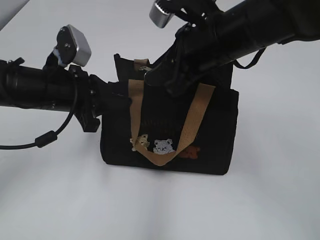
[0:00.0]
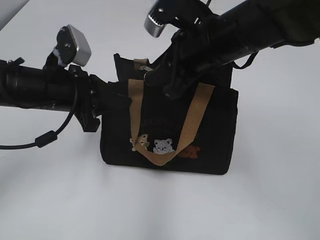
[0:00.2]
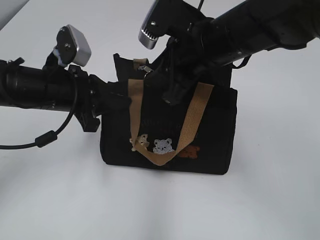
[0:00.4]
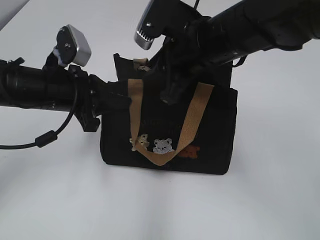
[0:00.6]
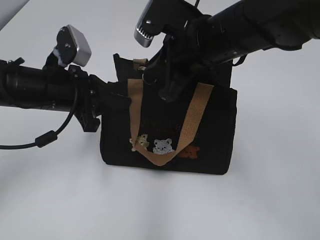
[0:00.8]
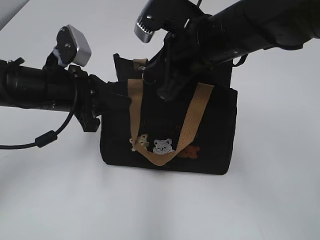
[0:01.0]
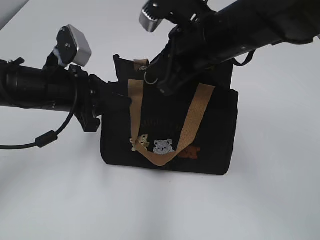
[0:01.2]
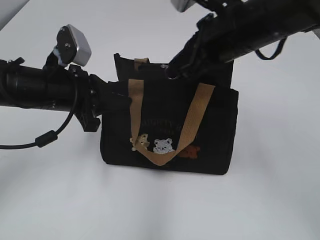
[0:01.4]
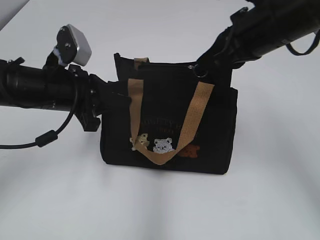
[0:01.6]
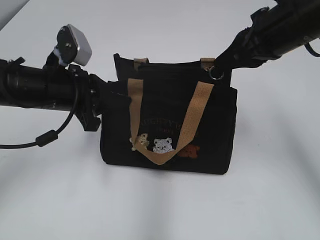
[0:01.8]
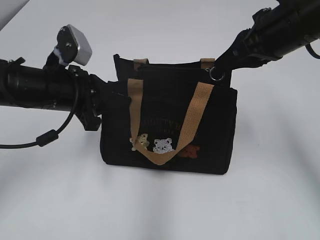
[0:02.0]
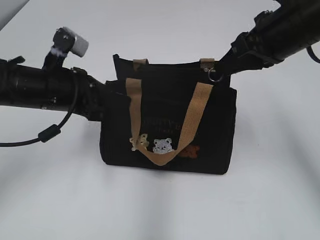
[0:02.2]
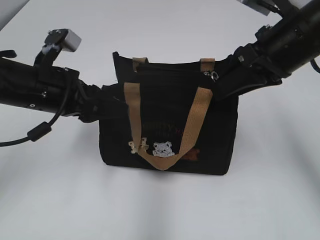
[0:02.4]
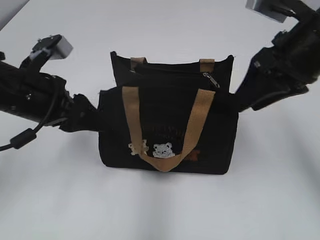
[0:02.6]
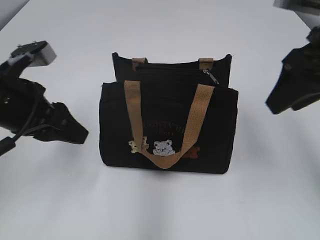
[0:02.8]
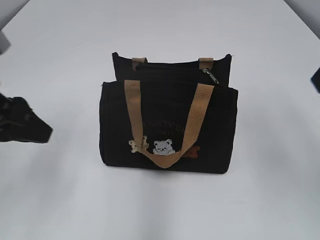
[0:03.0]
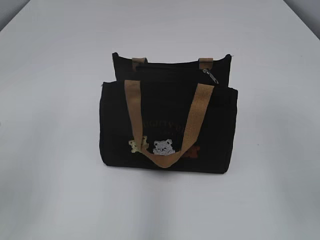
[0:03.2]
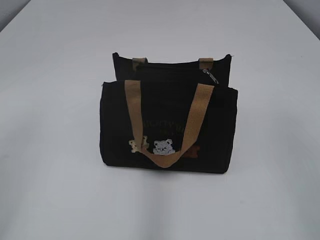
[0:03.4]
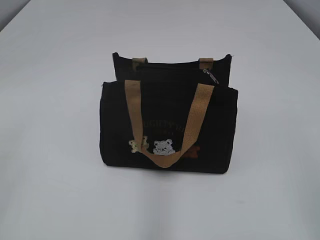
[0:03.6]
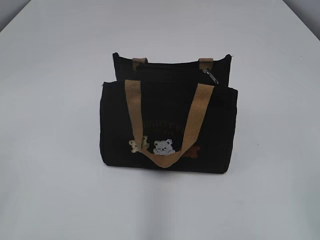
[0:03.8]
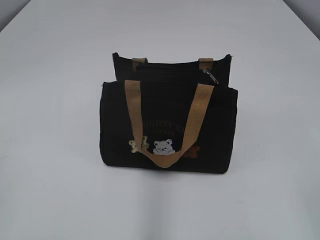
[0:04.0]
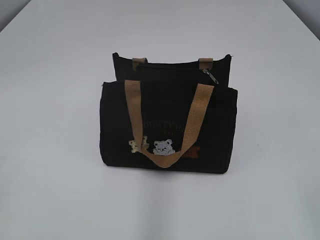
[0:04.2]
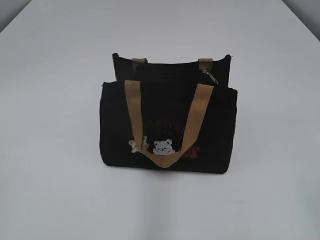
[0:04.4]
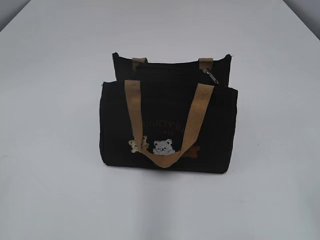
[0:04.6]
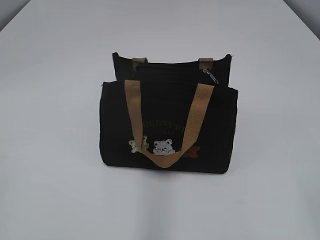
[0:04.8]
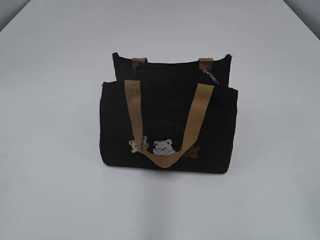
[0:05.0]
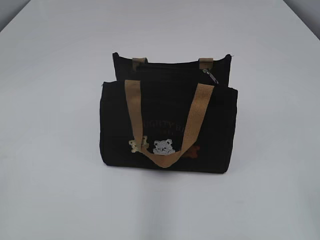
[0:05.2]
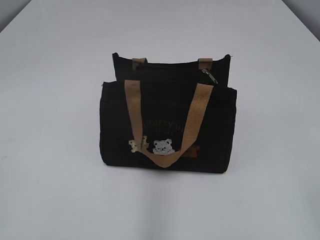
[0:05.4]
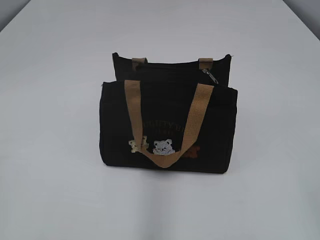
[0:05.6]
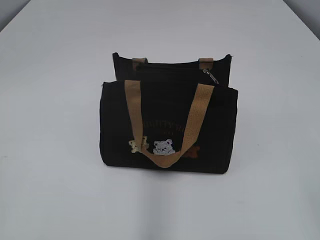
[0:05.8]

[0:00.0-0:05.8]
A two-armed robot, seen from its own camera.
Step, 0:00.0 to 0:02.2: Pull open the zipper with your right hand.
Step, 0:02.4 to 0:02.6: Hold the bag with your left hand.
0:00.0 to 0:01.4: The right gripper closes its fingers.
0:01.4 to 0:02.8: The right gripper moves to the right, some 10 cm, and opens. Meanwhile the left gripper changes place by approximately 5 cm, and opens.
0:02.8 to 0:04.4: The right gripper moves backward, about 30 cm, while the left gripper heads backward and to the left, covering roughly 30 cm.

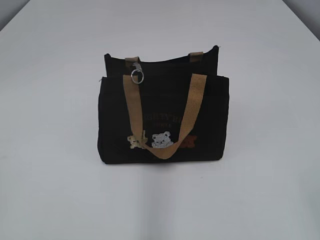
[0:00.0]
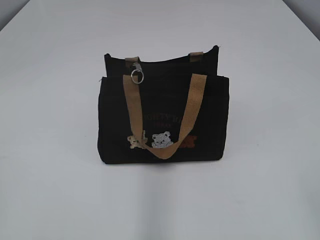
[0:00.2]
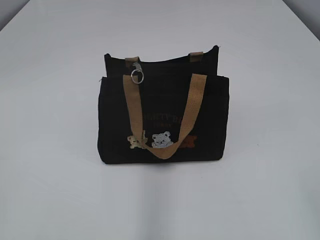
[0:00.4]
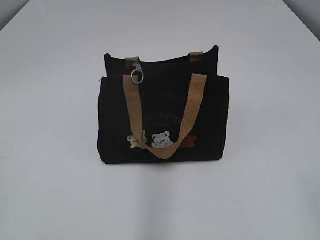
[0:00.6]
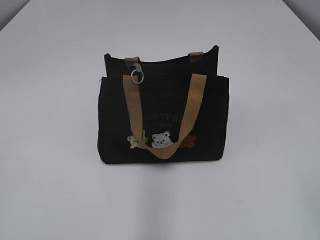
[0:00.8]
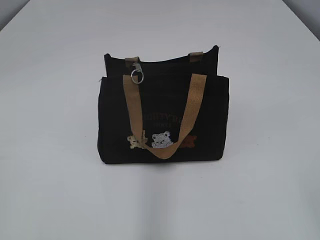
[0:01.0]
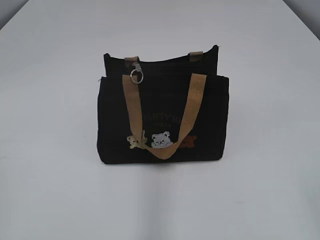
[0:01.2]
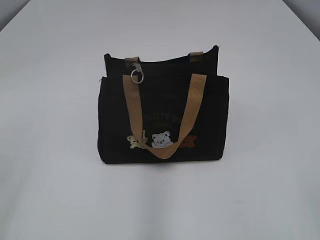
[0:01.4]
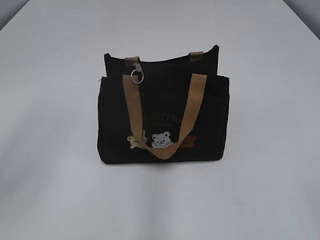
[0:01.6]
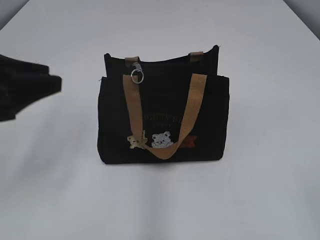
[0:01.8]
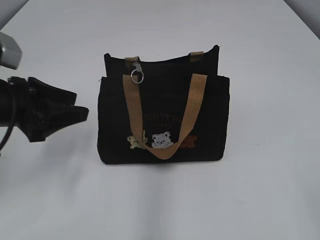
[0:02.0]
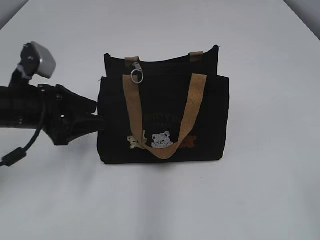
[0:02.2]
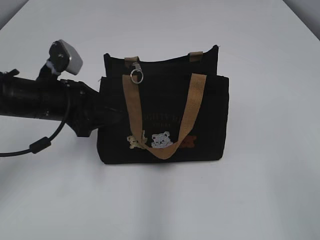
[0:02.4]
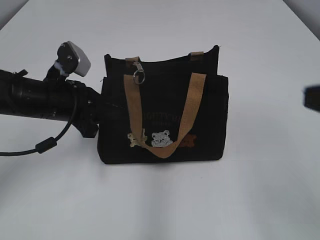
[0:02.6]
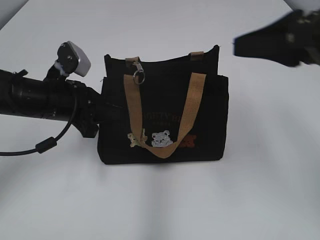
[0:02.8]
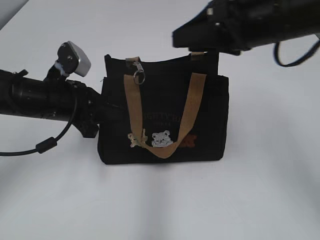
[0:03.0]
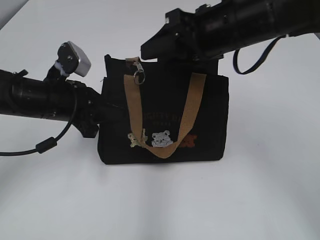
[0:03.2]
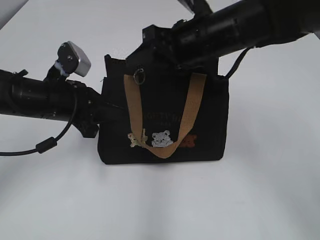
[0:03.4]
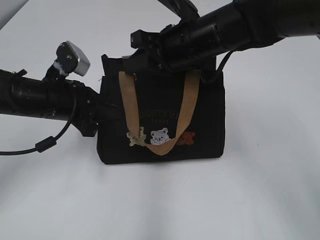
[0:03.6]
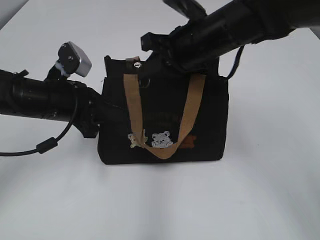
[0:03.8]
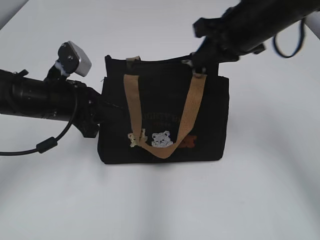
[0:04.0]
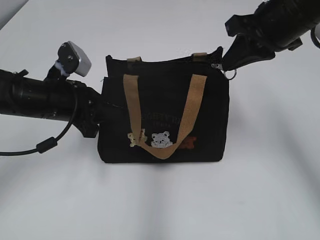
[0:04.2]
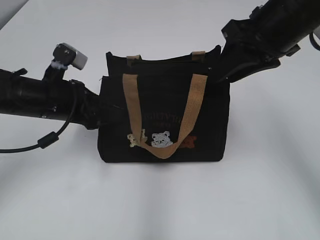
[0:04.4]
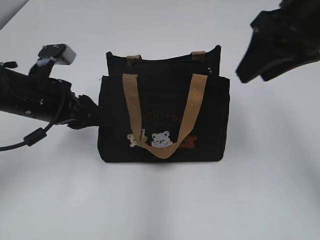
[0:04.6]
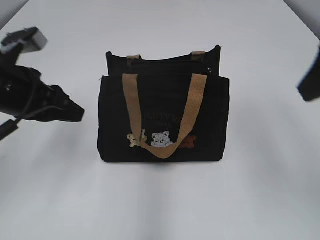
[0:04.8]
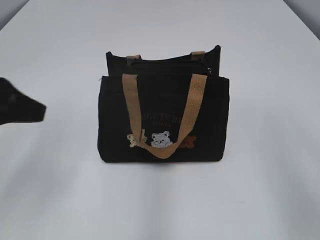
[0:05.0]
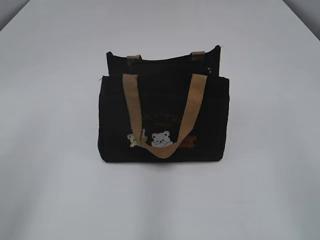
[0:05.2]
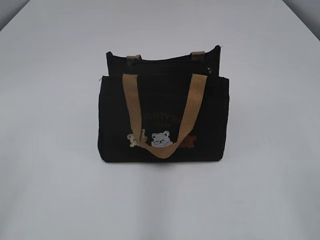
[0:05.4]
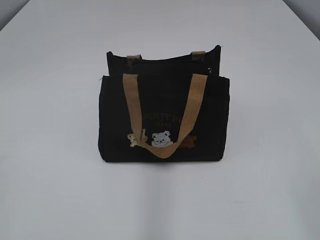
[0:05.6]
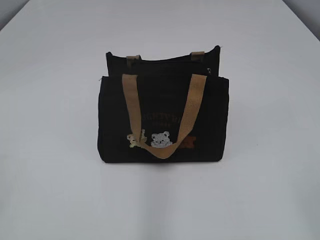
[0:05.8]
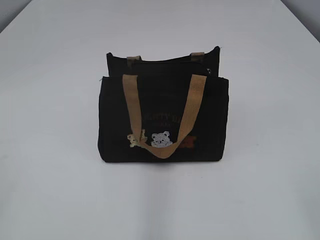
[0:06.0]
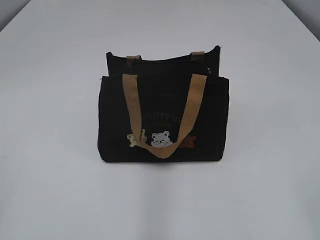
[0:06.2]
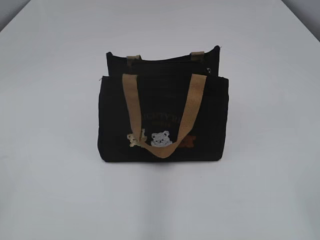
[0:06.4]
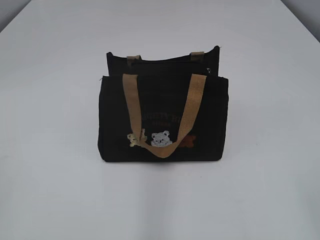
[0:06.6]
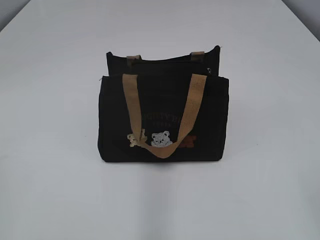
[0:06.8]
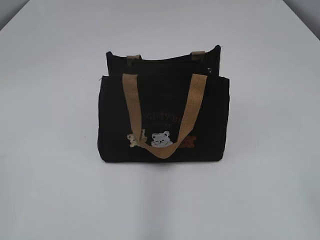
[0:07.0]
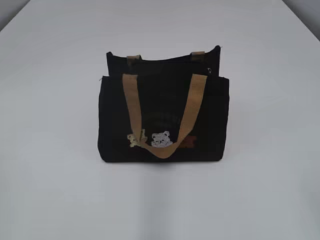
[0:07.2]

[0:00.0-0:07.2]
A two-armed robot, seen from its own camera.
Step, 0:00.0 to 0:04.4: Pull open the zipper with your right hand.
Step, 0:04.6 to 0:04.8: Hold the bag with your left hand.
0:01.4 to 0:02.8: The right gripper is displaced forward by about 25 cm, while the left gripper is displaced forward, downward and to the right by approximately 35 cm, and closes.
0:02.8 to 0:04.4: The right gripper moves forward, about 10 cm, travels to the left and back again, about 15 cm each way, and closes, then reopens. The left gripper opens.
0:04.4 to 0:05.8: The left gripper moves backward, to the left and upward, about 35 cm, and closes up. The right gripper shifts roughly 30 cm backward.

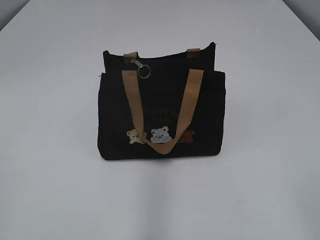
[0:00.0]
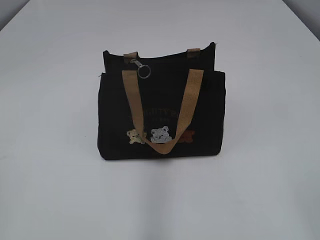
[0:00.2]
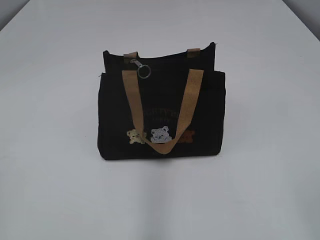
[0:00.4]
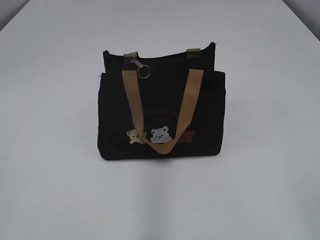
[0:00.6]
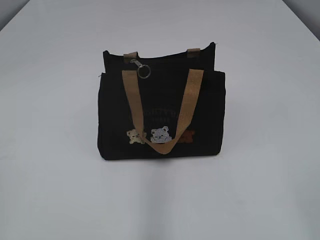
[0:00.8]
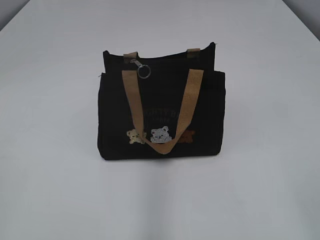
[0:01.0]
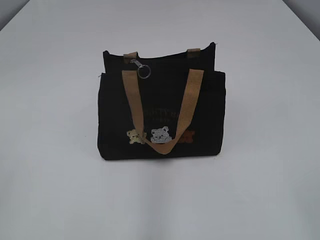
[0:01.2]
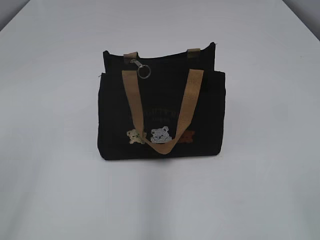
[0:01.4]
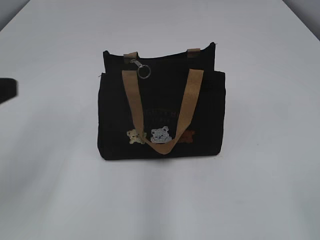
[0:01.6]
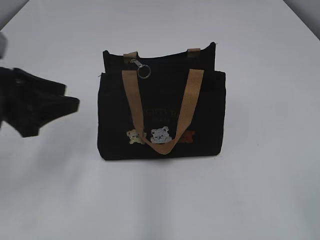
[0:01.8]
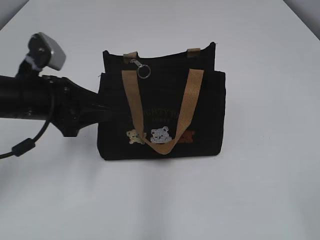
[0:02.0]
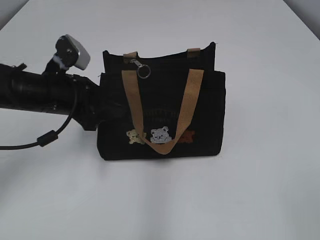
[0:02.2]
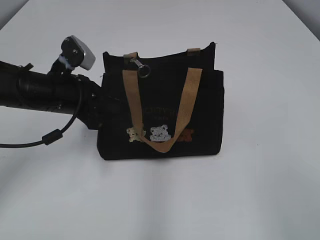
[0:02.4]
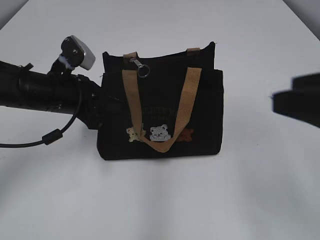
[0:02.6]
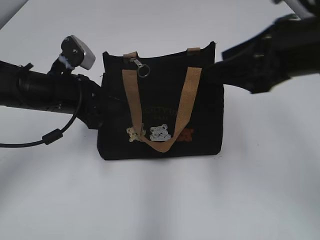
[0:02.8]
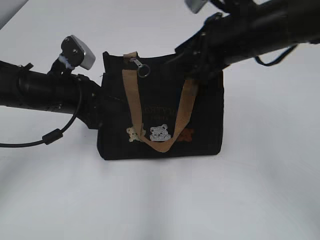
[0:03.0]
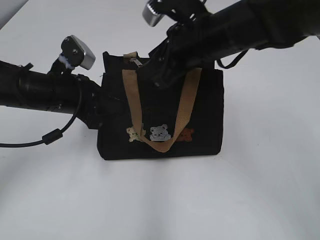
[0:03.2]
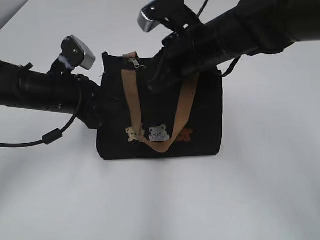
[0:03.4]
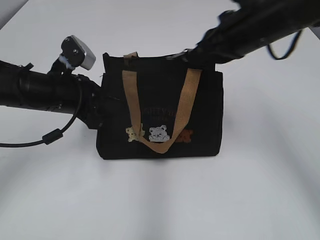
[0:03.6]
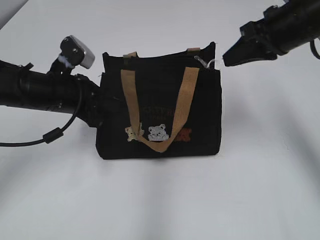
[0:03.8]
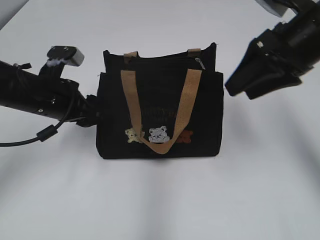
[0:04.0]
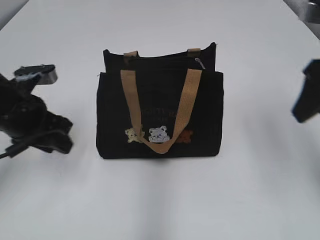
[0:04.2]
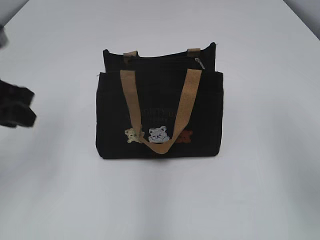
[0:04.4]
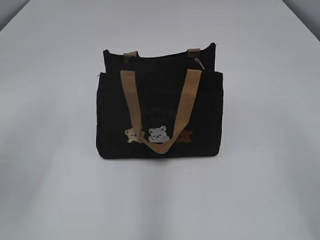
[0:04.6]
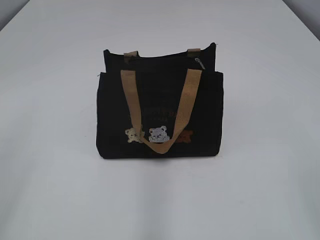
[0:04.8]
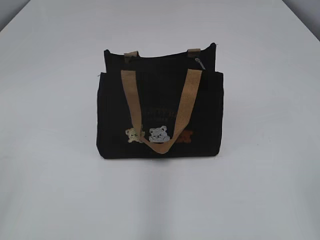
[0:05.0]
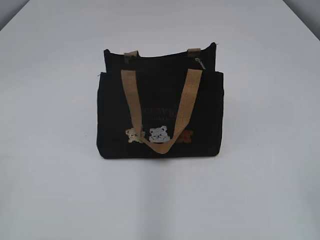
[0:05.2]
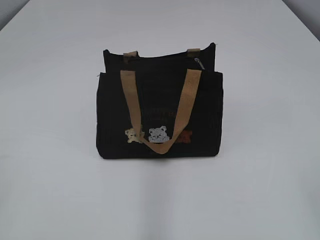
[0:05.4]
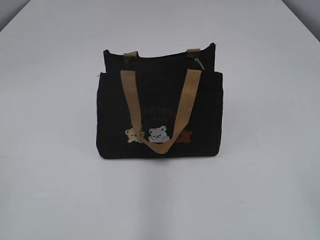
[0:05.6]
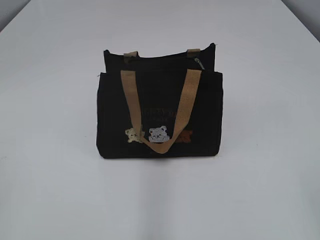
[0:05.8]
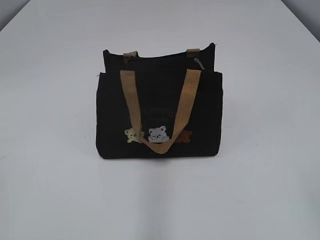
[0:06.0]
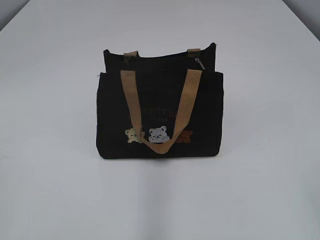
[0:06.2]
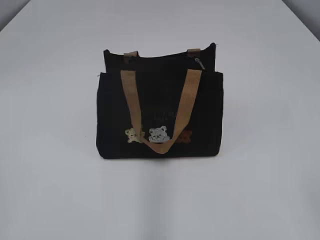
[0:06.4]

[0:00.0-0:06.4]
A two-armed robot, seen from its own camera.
Step, 0:00.0 to 0:03.6: Pull open the zipper with your right hand.
0:01.6 to 0:03.2: The left gripper goes some 30 cm forward, downward and to the right, and closes up. The right gripper heads forward and to the left, covering about 35 cm.
0:03.2 to 0:04.8: The left gripper travels backward, upward and to the left by about 25 cm, and opens its fingers, while the right gripper heads backward and to the right, covering roughly 30 cm, and closes and opens again.

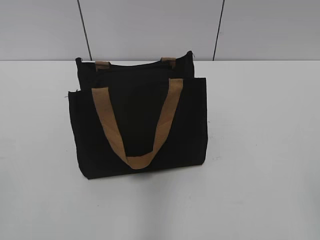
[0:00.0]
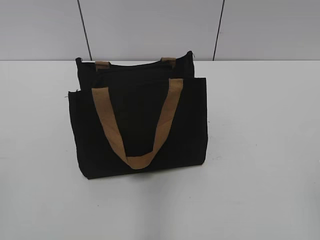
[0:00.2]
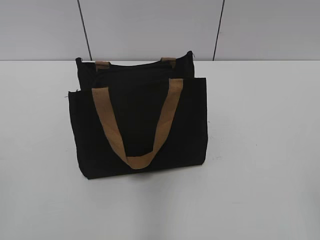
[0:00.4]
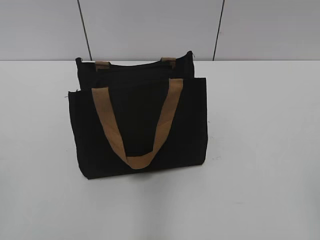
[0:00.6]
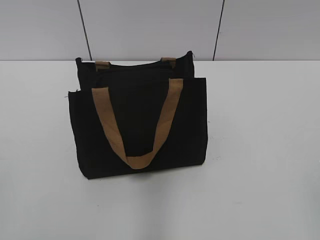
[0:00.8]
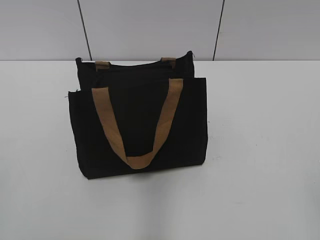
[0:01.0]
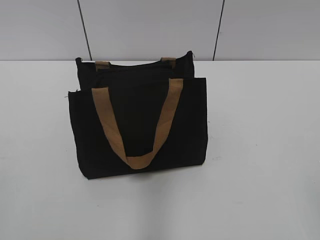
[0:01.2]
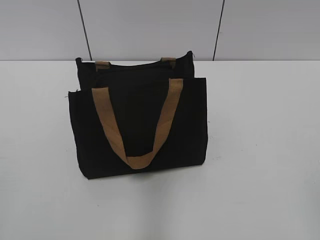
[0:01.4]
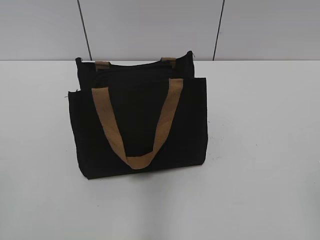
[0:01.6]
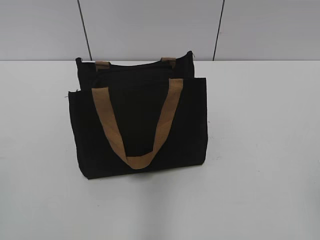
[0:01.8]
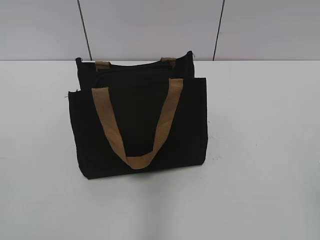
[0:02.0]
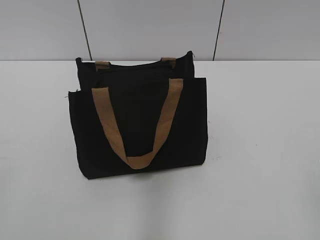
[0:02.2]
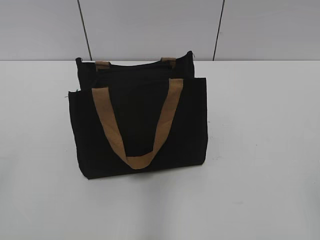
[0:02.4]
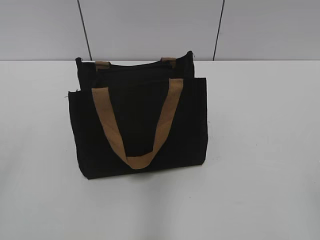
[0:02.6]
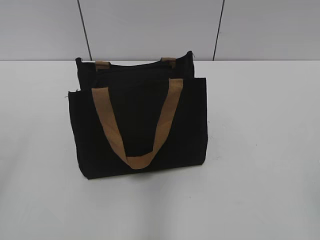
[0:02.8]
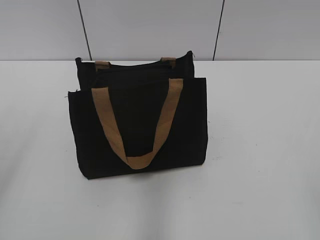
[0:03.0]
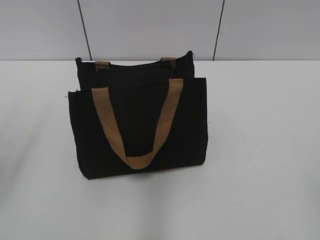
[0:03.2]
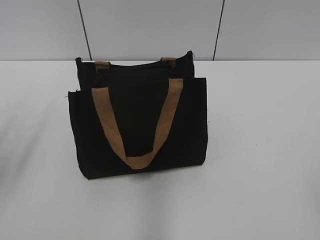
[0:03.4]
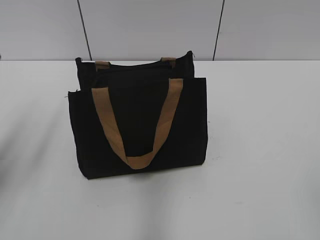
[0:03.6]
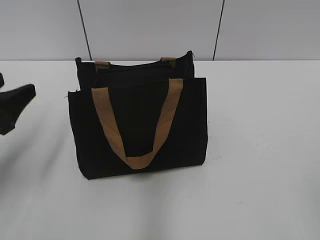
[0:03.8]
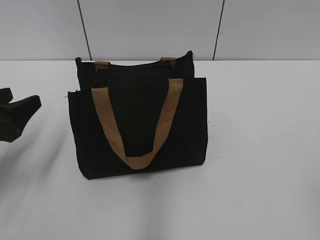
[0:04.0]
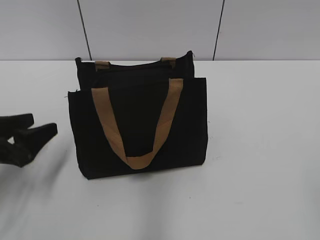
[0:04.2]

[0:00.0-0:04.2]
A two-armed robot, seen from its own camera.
0:02.8 to 0:04.2: The left gripper moves forward and downward, about 25 cm.
